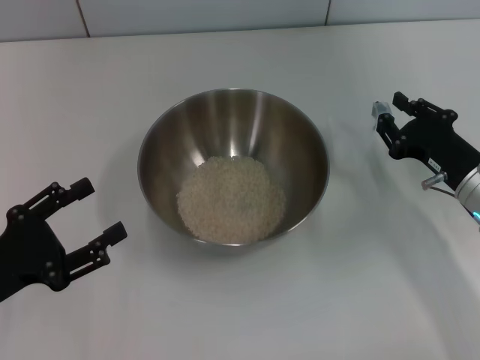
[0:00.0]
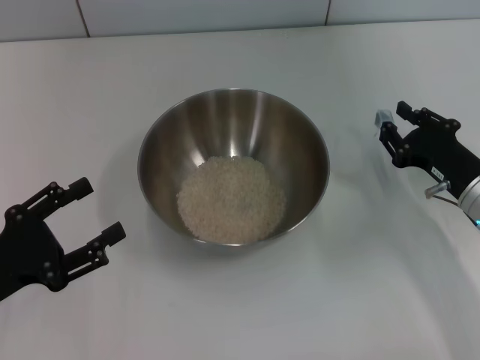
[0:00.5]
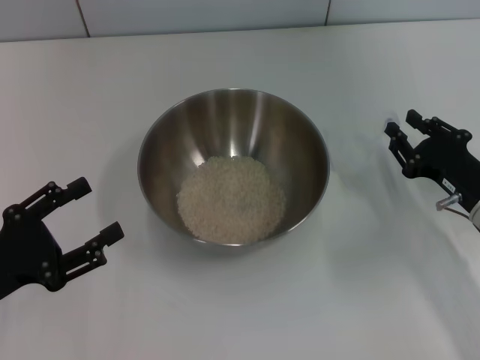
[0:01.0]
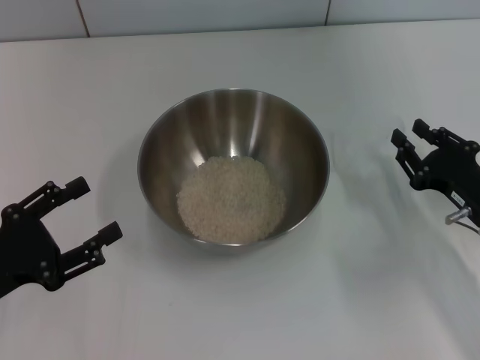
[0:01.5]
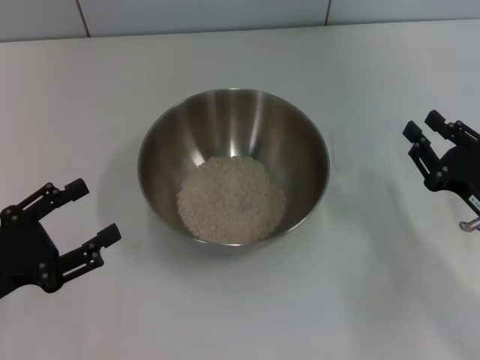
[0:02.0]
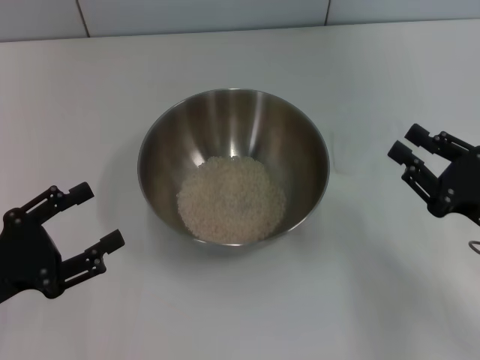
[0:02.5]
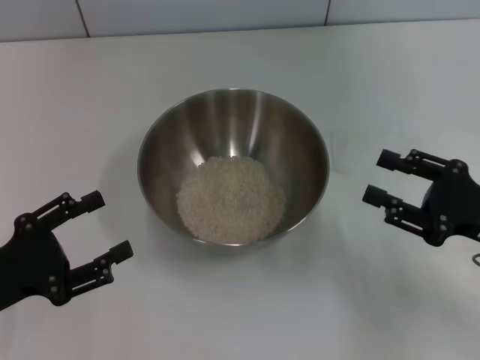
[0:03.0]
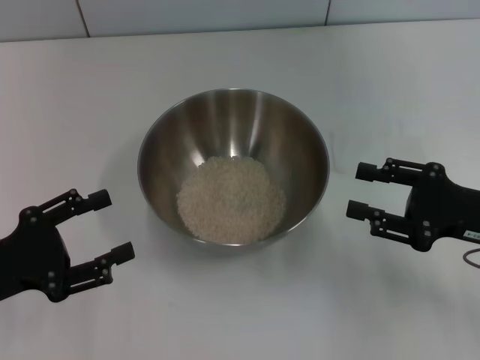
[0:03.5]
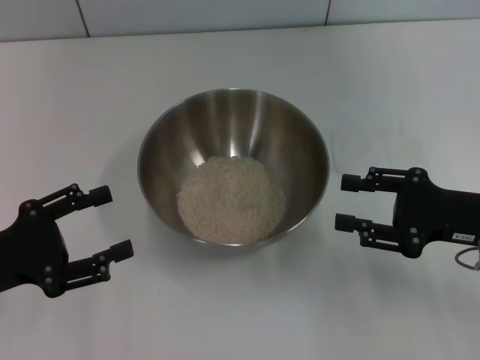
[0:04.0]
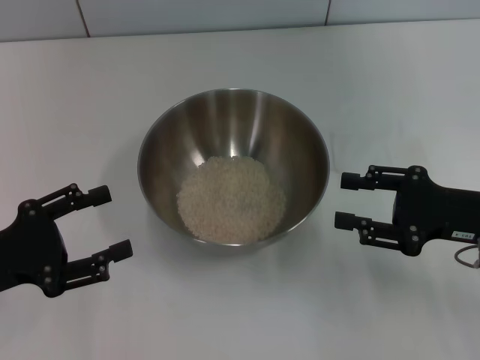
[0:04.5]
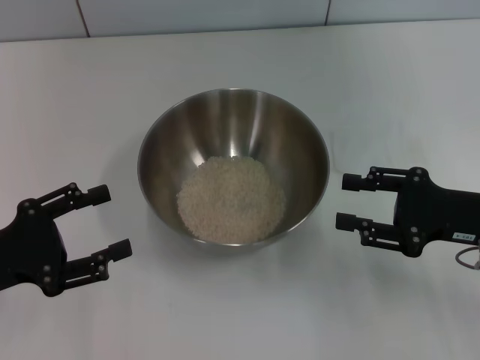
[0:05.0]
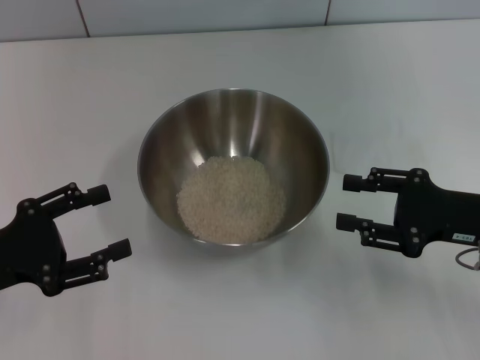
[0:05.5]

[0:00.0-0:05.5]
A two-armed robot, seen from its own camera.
Task of the whole recording: Place the bowl in the middle of the table with one hand and pour the rice from the grain cup into it with the other hand.
0:00.0 to 0:02.0: The right gripper is displaced backward by about 5 cm.
0:03.5 to 0:05.5: The grippers stay close to where they were, moving slightly.
